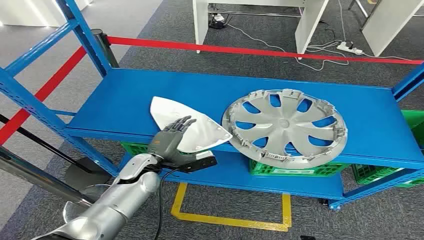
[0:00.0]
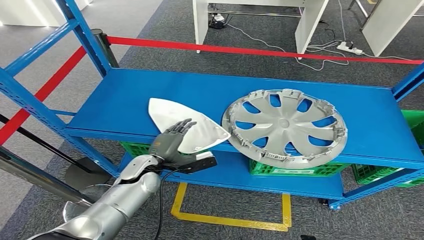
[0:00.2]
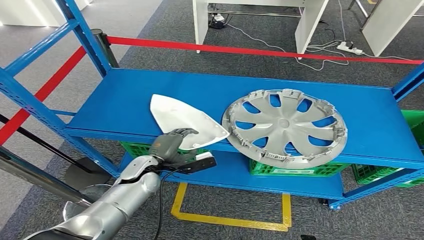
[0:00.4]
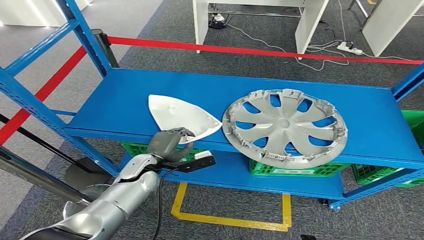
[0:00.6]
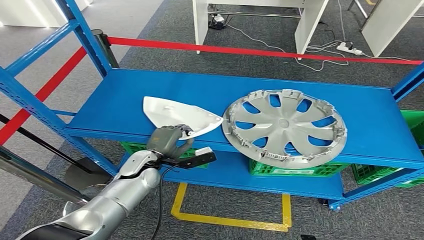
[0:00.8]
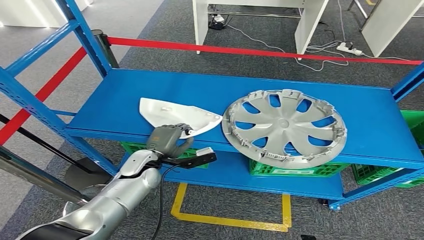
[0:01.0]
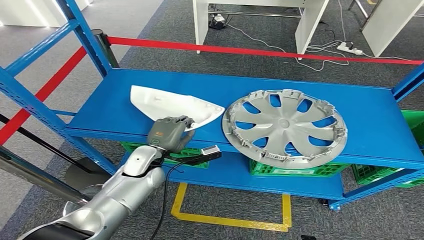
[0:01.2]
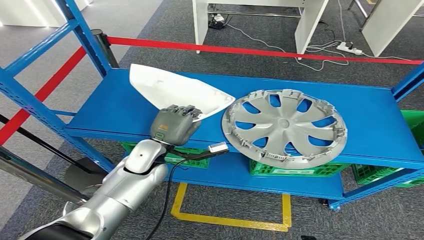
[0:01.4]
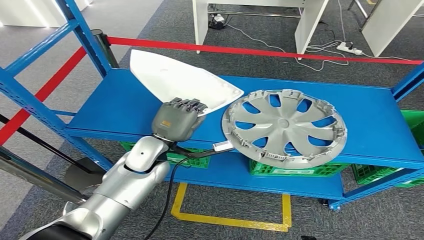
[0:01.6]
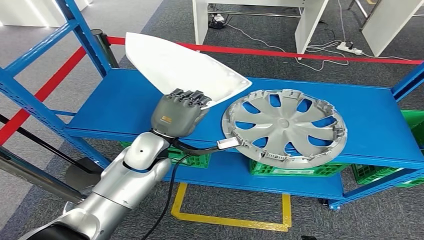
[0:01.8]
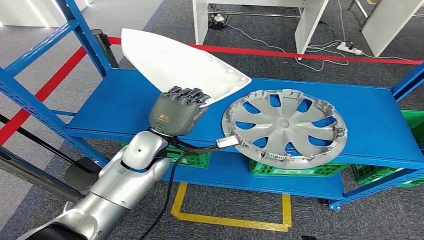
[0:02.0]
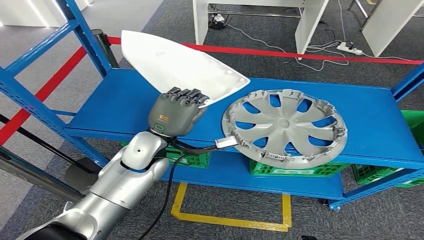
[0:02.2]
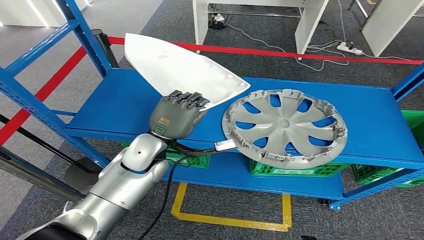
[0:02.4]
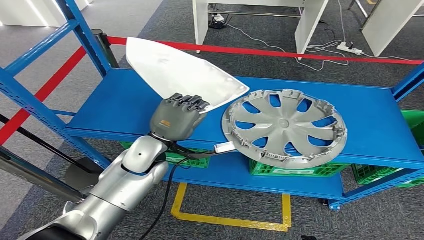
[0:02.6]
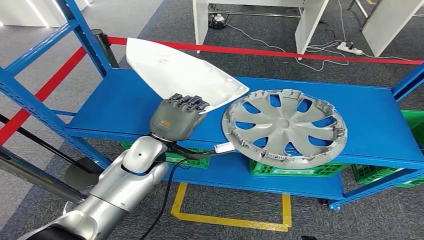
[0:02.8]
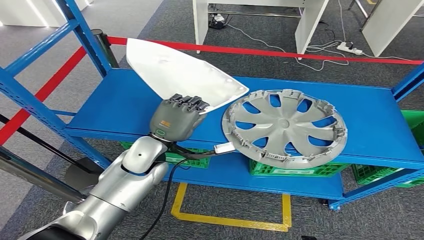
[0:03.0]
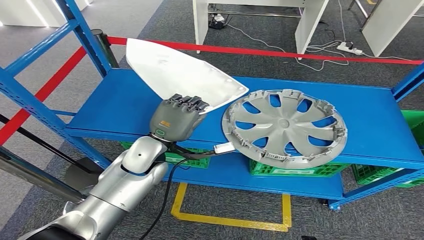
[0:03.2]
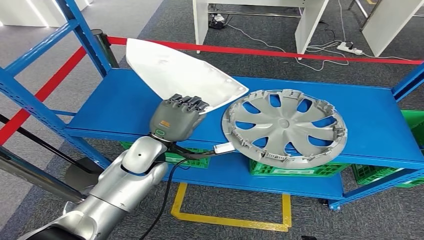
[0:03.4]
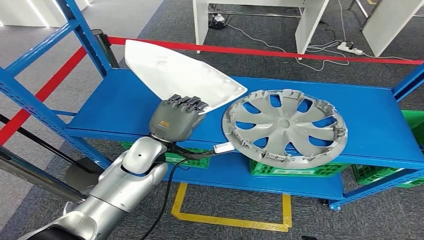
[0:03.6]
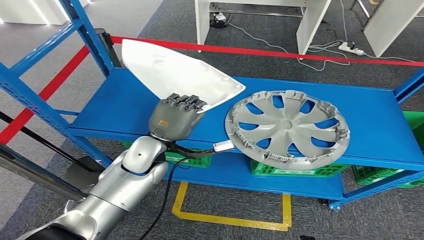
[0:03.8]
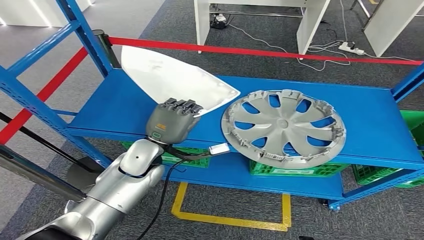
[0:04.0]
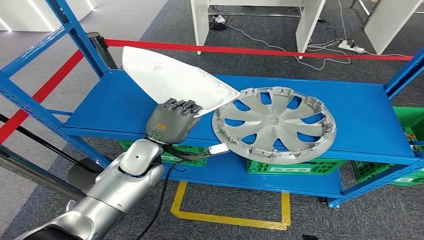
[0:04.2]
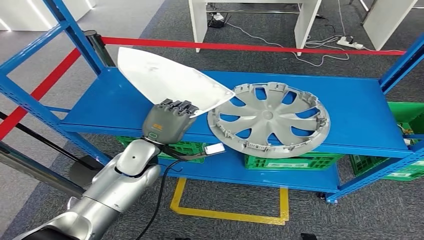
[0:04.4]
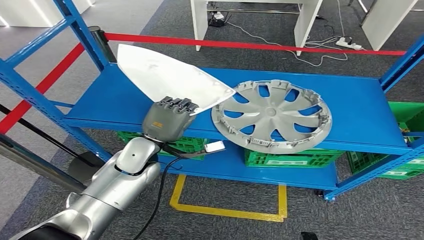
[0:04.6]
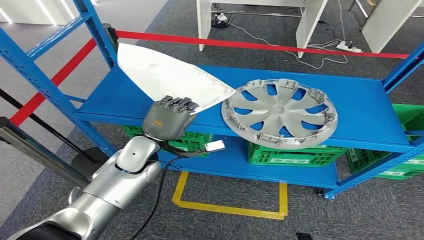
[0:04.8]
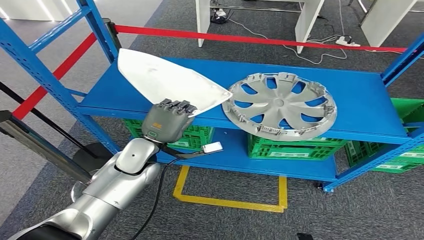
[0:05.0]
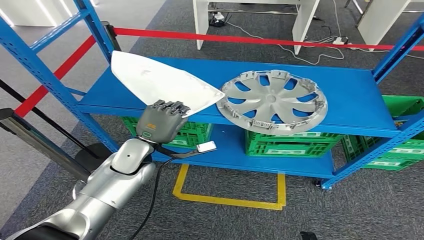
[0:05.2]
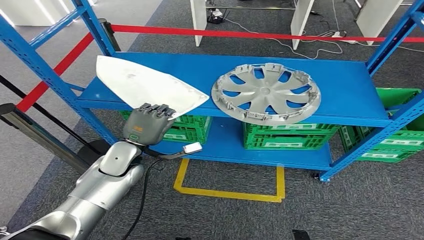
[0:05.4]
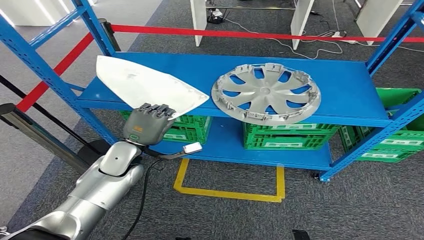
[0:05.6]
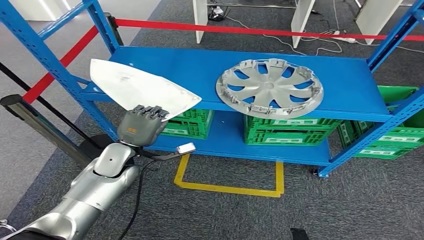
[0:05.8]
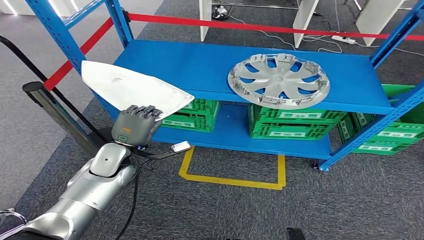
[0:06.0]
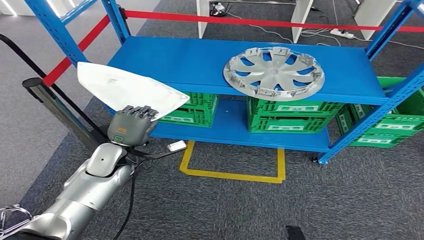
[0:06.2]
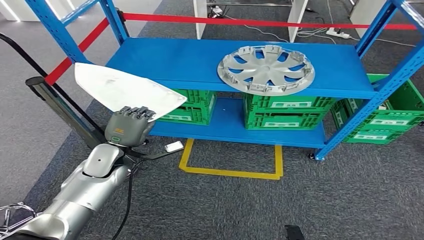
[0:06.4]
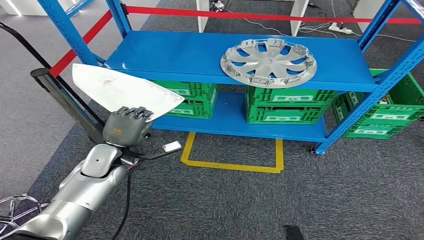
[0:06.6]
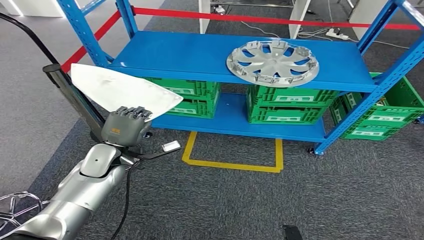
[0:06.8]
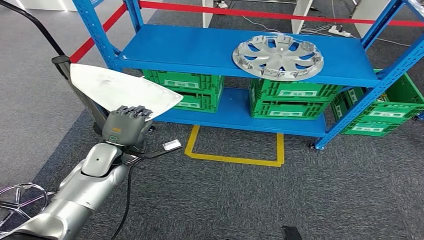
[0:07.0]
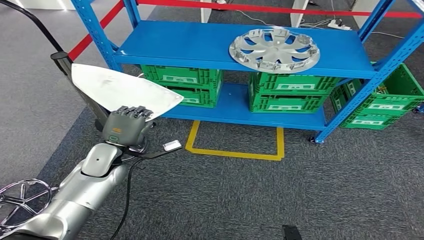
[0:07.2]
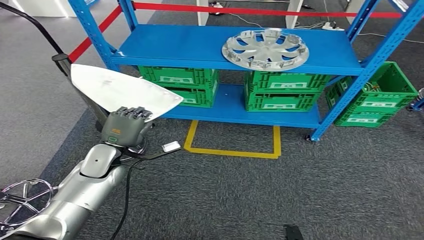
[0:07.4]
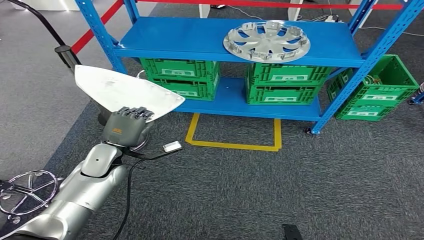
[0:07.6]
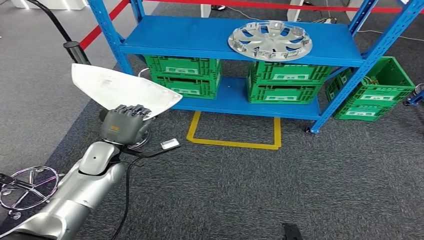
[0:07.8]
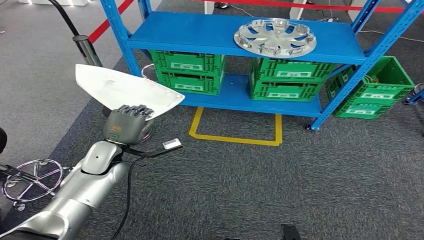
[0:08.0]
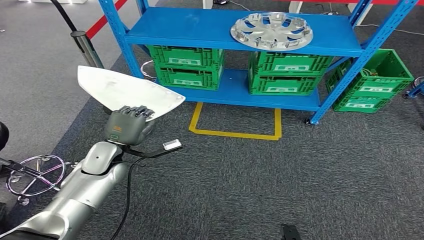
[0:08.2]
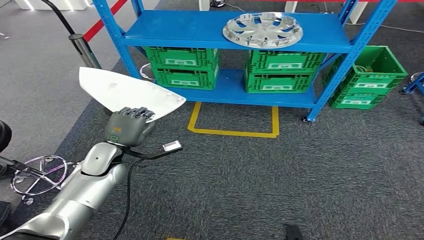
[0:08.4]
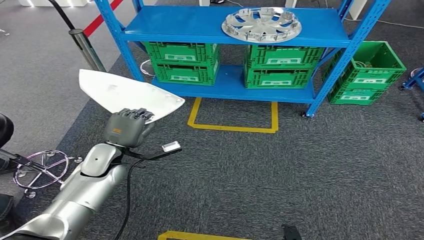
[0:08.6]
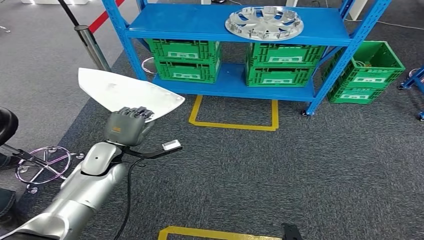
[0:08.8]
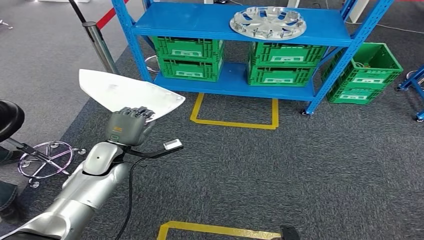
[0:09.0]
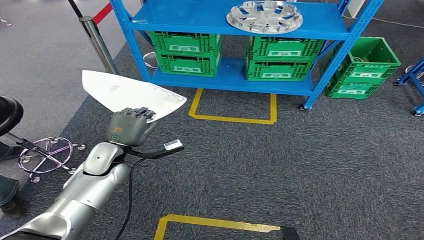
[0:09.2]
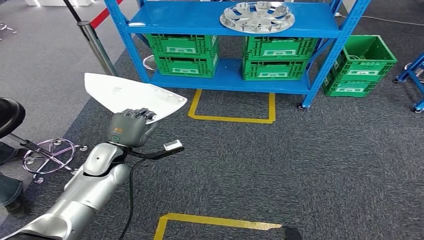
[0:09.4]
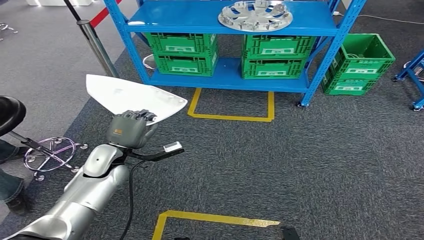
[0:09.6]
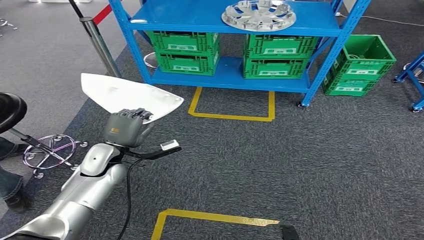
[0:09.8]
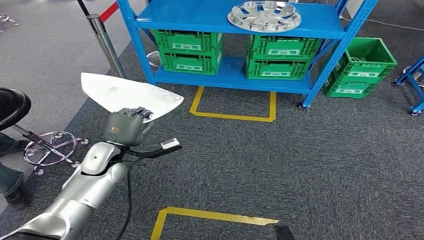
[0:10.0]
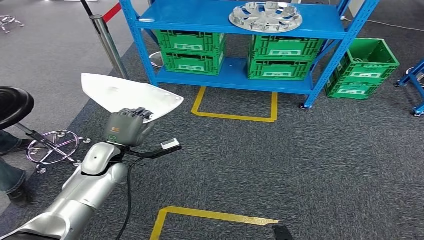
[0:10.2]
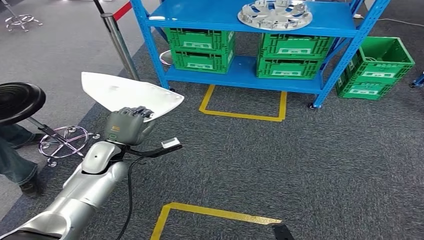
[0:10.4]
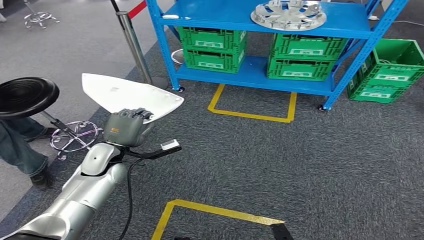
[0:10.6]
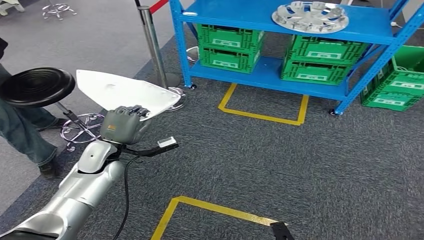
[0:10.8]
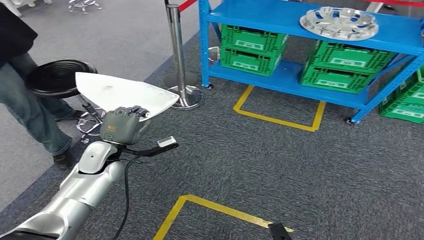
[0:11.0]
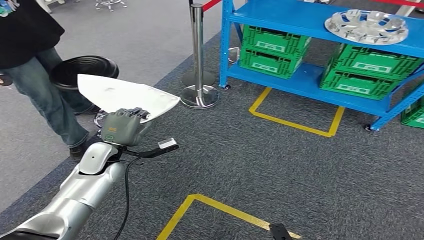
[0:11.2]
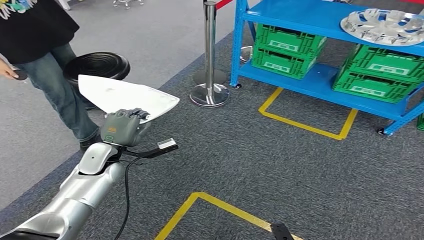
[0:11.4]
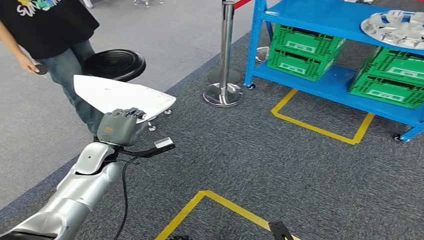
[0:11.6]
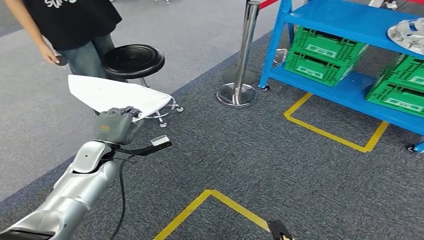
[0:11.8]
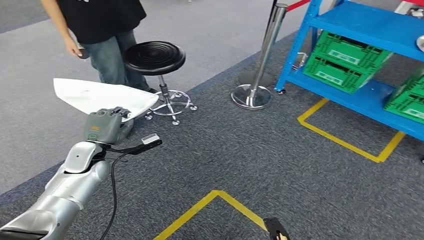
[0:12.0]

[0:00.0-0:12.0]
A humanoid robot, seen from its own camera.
Step, 0:00.0 to 0:03.0: Pick up the small component from the shelf.
0:01.6 to 0:03.0: The hands move only a little.

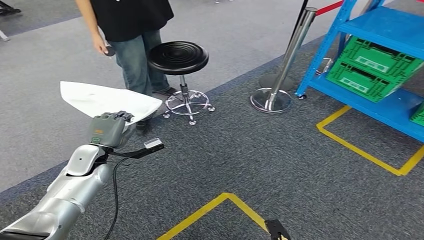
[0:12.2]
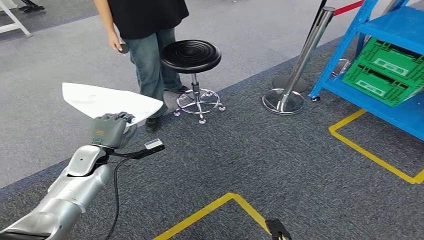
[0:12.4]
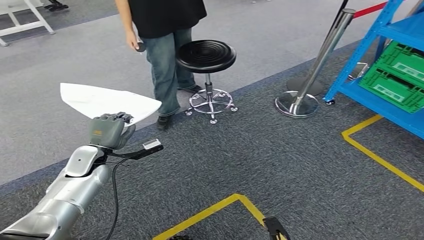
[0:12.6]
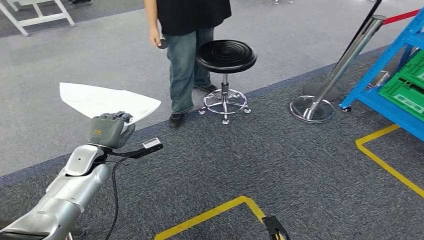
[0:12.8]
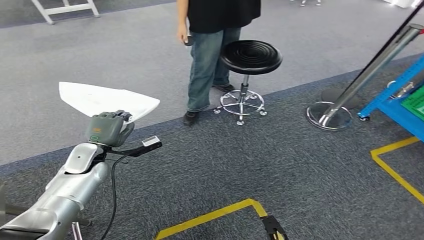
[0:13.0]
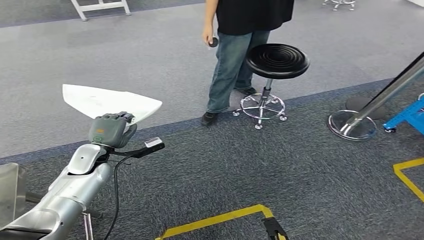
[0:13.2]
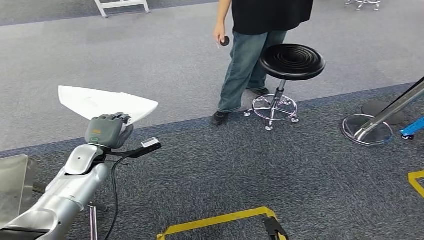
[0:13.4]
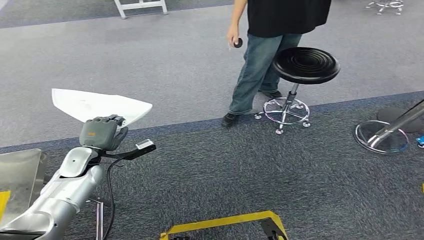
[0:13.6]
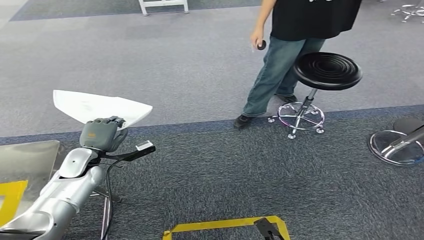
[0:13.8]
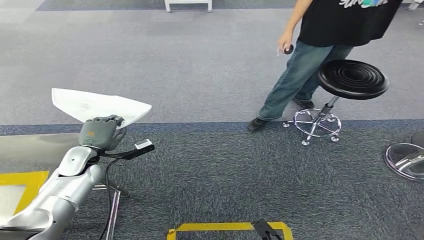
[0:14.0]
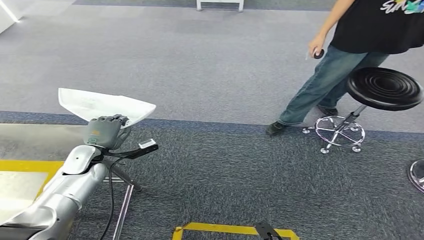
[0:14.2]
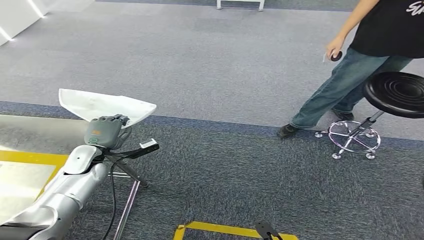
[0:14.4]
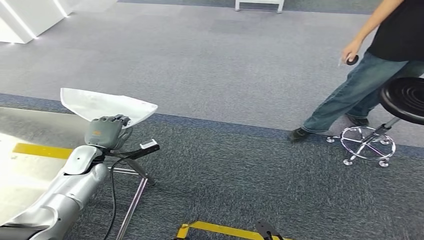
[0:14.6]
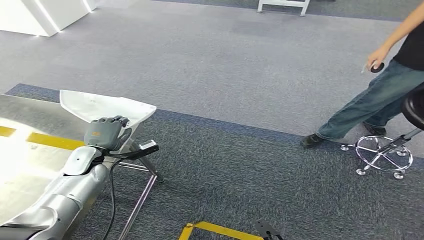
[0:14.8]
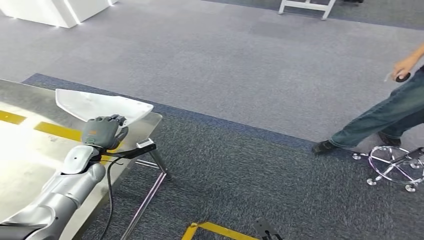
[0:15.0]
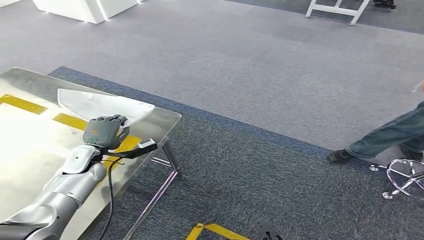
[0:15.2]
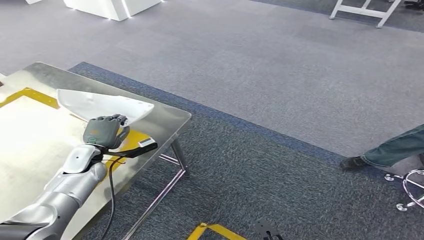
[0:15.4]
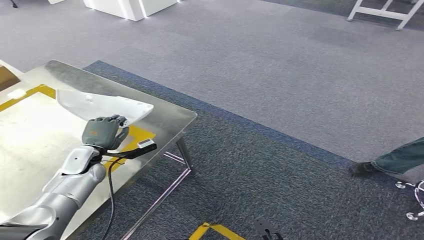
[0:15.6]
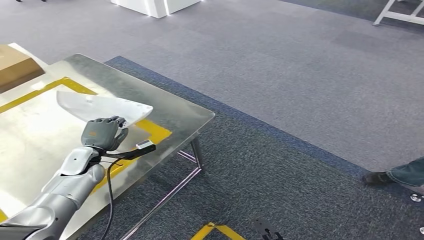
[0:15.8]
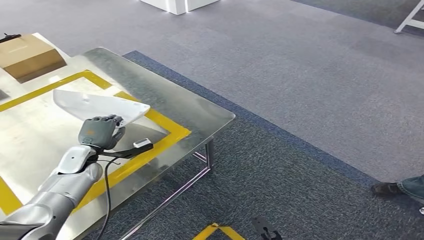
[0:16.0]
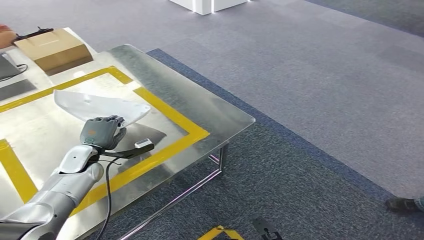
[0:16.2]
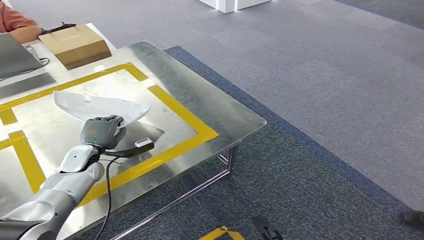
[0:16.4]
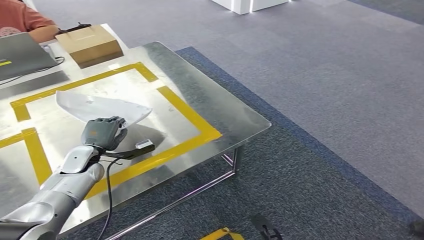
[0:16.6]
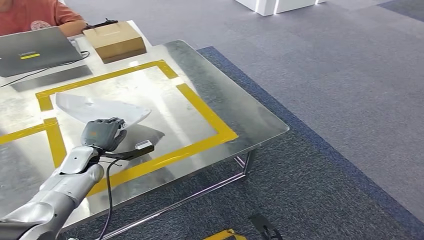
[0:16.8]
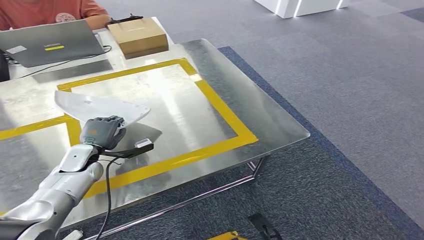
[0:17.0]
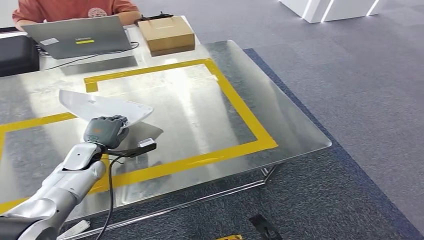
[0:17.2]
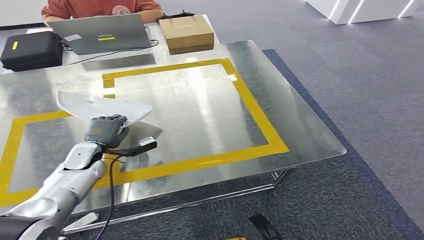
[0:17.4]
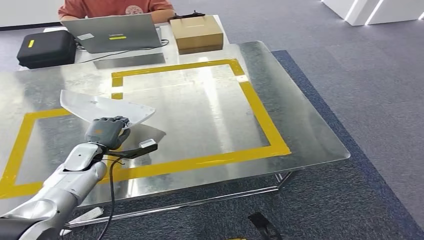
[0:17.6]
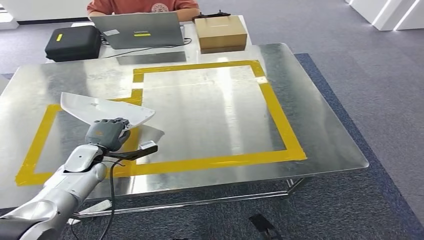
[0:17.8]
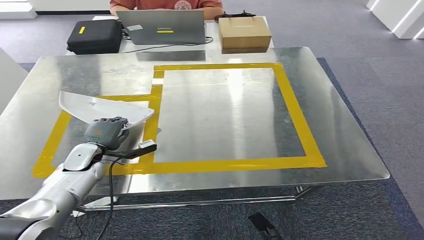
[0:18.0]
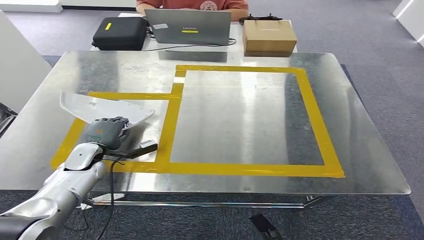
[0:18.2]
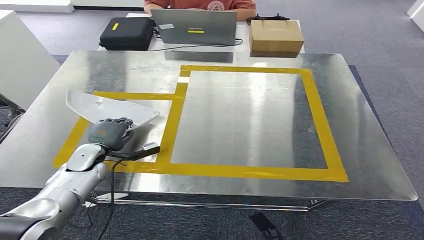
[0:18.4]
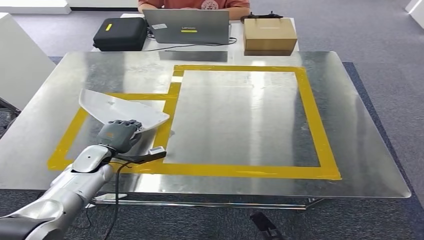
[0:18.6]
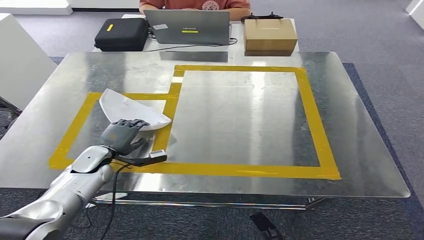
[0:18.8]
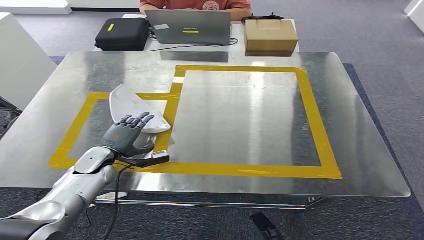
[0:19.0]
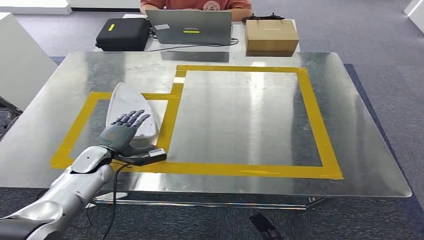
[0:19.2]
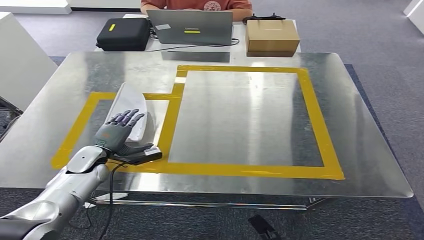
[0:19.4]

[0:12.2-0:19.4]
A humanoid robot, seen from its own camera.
Step, 0:12.2 to 0:16.0: Move the small component to the workbench.
